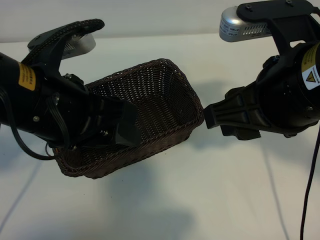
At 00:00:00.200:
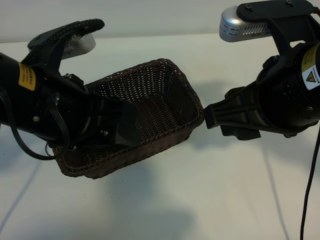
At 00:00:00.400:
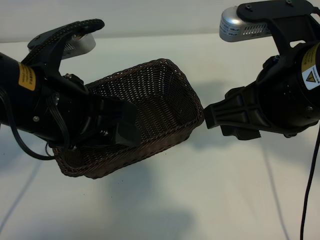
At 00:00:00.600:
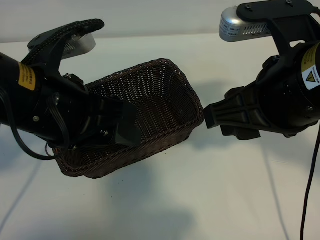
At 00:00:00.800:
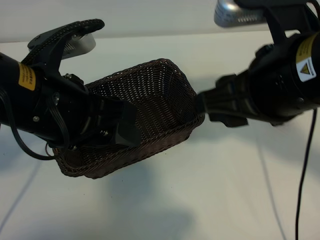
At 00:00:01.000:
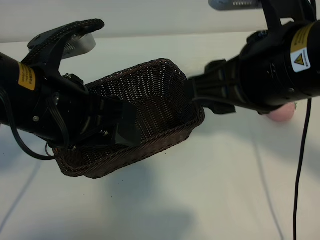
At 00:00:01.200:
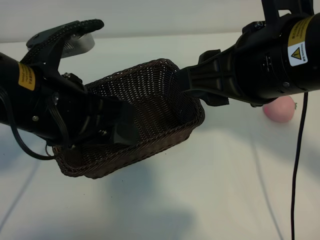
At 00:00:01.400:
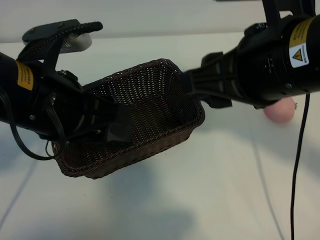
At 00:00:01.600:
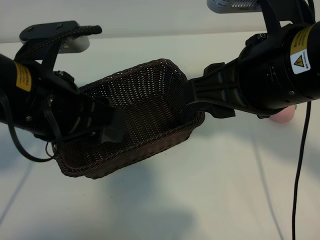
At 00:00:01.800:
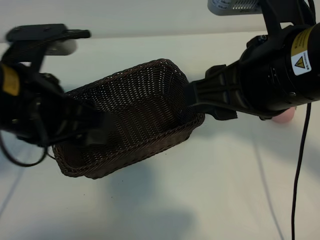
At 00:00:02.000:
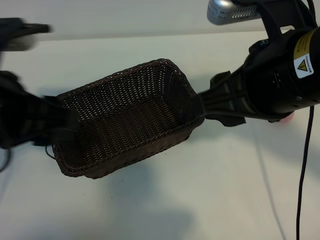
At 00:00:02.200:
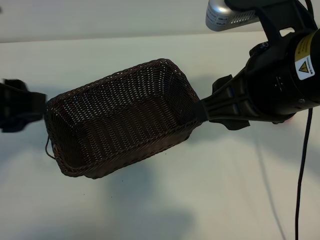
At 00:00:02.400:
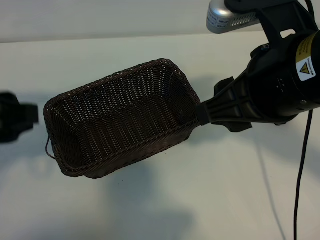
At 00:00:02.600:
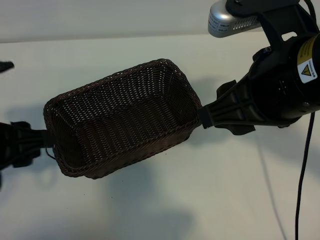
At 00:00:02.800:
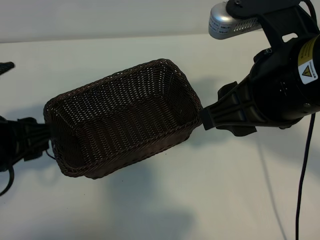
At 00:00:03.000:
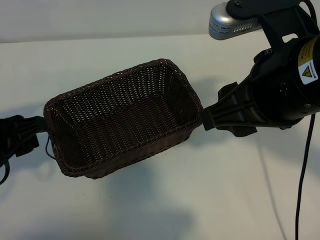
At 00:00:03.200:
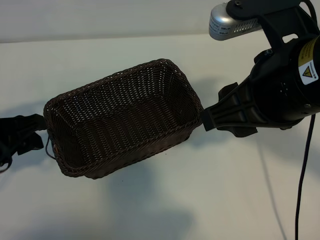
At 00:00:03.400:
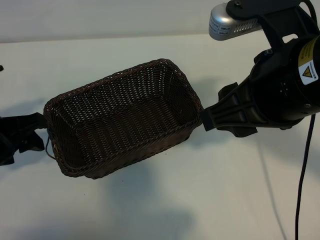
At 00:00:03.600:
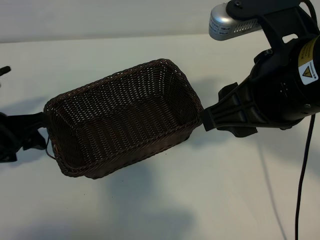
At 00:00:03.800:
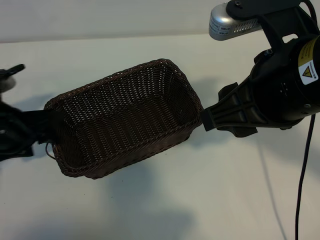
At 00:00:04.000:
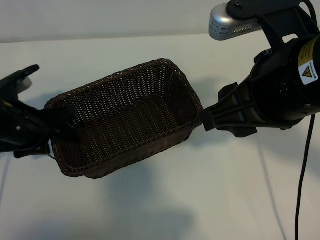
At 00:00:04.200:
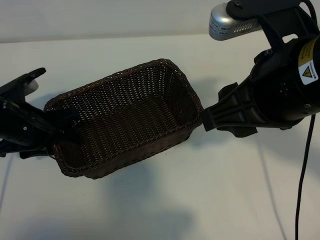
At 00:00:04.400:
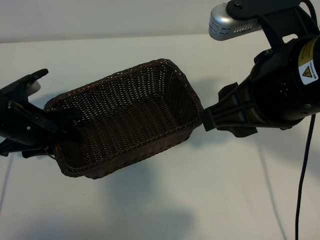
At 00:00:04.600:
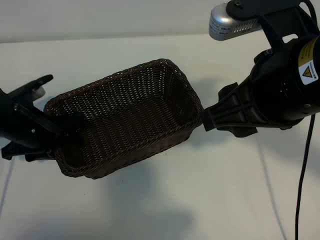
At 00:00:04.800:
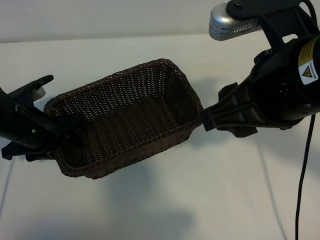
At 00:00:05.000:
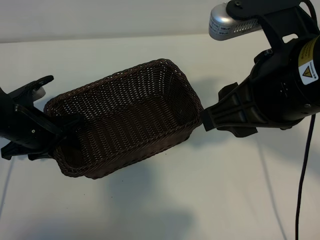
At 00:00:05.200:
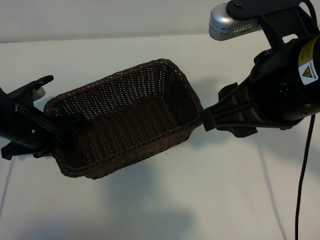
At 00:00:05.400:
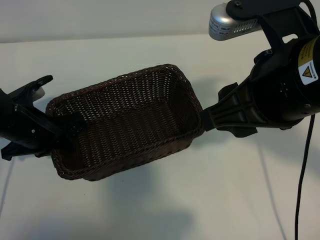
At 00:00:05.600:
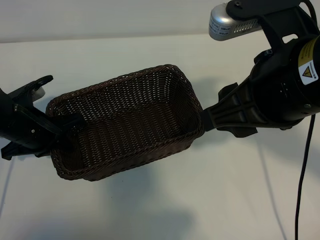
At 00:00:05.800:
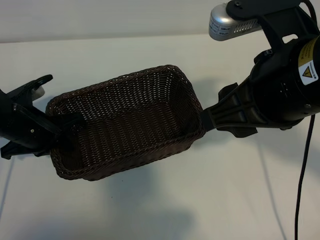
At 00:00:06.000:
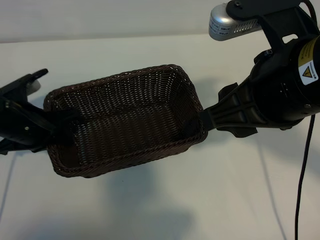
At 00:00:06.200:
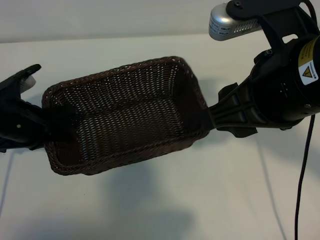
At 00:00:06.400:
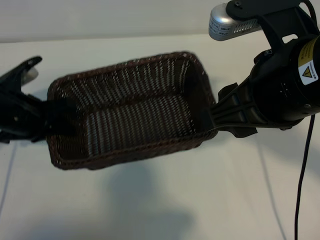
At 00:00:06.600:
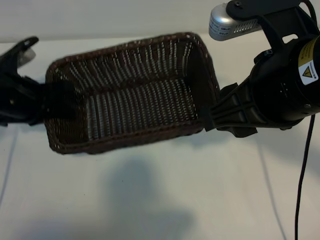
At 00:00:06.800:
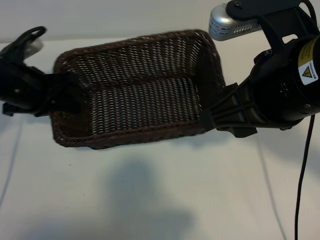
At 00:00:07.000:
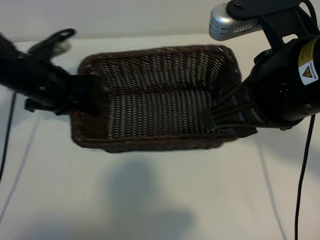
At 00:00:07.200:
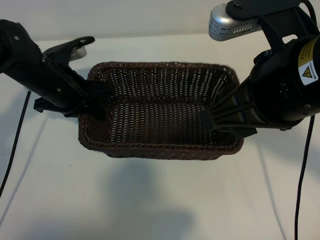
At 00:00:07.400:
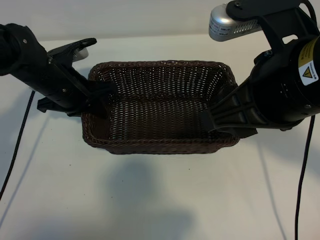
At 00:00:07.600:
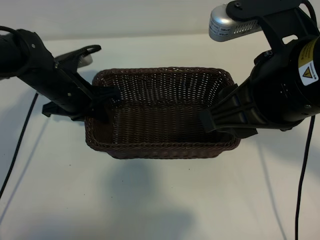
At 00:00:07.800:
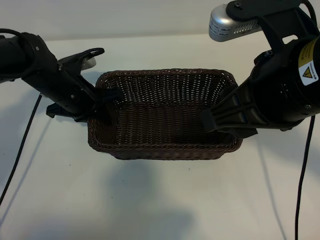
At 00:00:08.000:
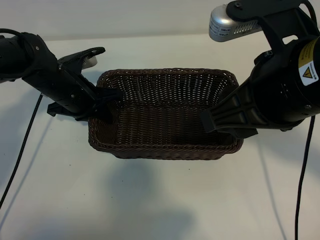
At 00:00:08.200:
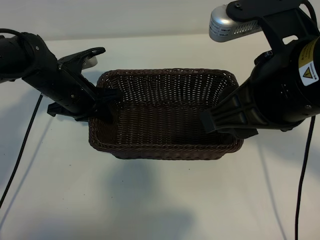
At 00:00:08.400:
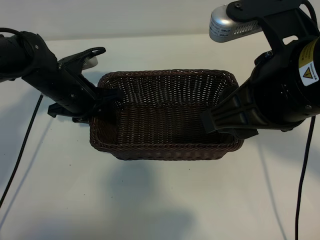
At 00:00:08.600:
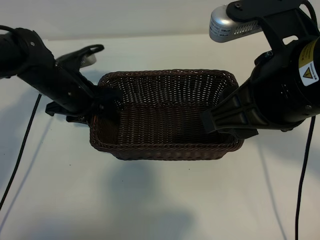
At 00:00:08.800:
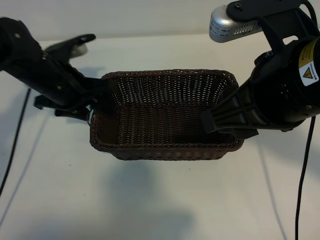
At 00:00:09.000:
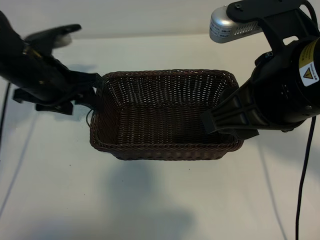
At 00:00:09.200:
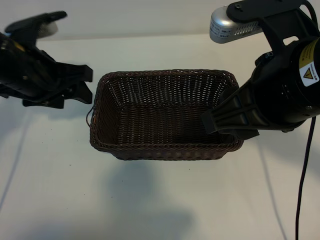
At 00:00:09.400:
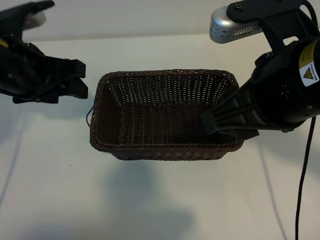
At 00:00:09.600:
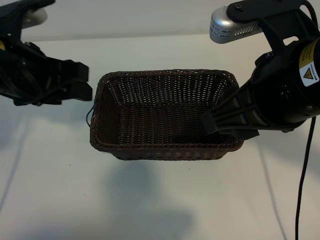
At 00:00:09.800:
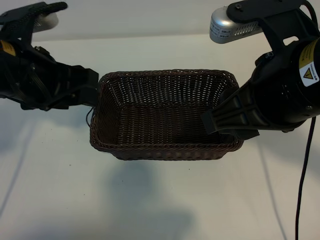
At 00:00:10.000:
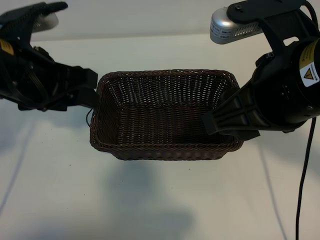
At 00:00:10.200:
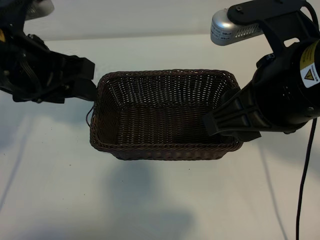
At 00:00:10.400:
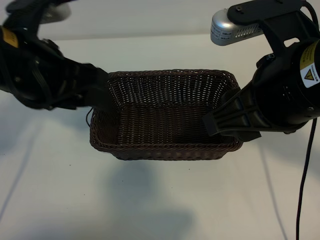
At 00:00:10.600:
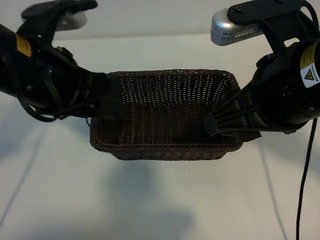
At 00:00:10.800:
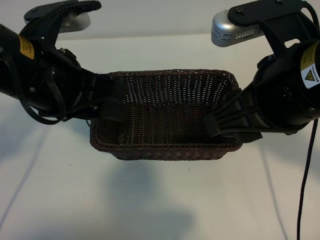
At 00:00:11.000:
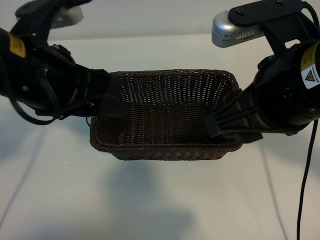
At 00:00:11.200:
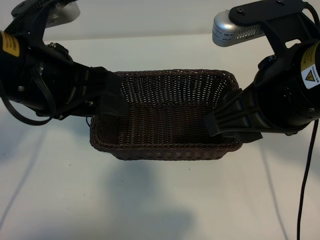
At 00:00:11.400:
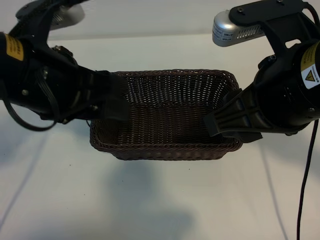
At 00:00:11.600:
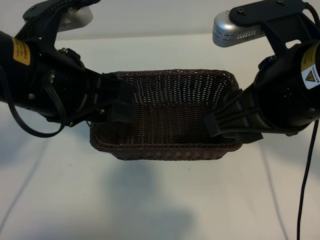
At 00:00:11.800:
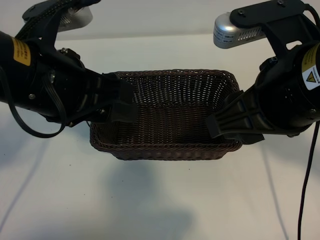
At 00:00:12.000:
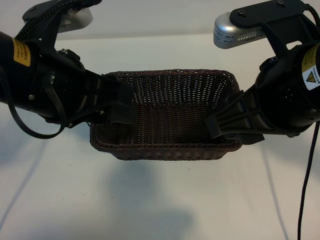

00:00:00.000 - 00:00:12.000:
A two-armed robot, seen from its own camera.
Task of the whole recording: pick up the peach and put it into the basket.
Step, 00:00:00.800 - 00:00:05.400: Grasp the basket with left gripper.
Step, 00:00:05.800 - 00:00:08.800: Place the basket in the center of view with left gripper.

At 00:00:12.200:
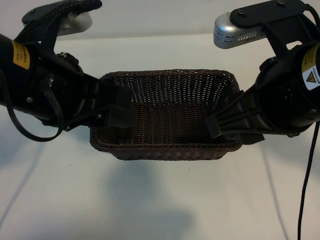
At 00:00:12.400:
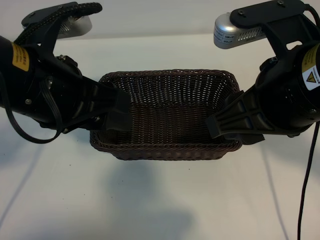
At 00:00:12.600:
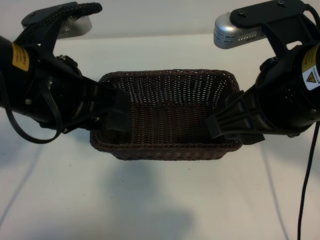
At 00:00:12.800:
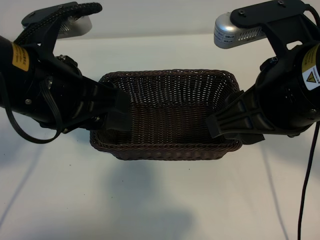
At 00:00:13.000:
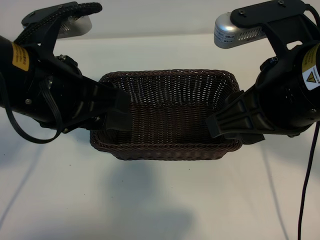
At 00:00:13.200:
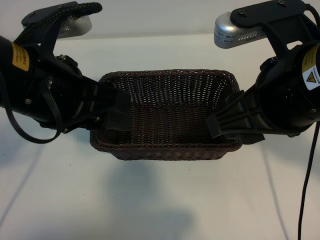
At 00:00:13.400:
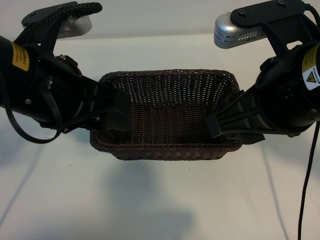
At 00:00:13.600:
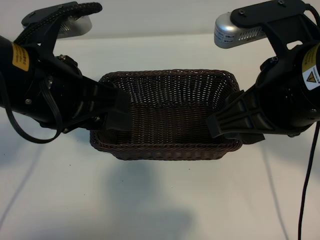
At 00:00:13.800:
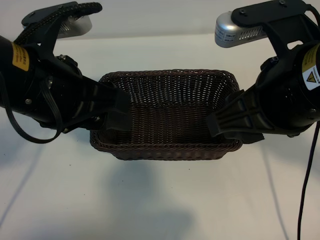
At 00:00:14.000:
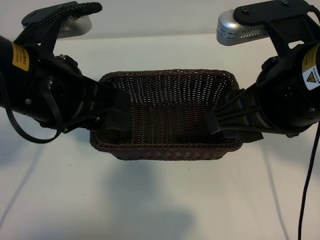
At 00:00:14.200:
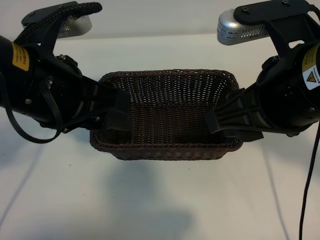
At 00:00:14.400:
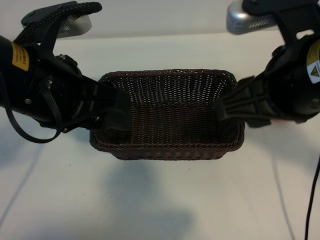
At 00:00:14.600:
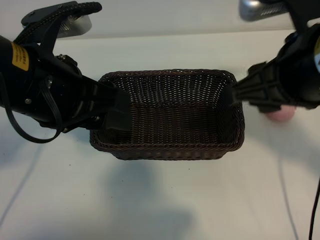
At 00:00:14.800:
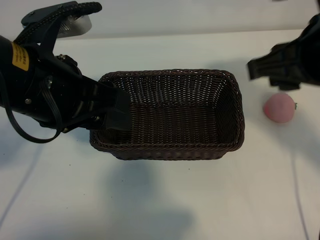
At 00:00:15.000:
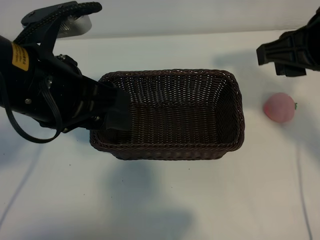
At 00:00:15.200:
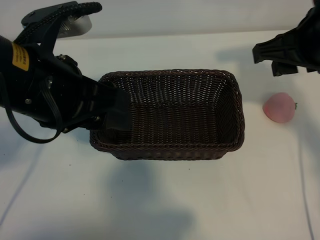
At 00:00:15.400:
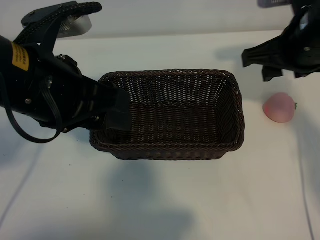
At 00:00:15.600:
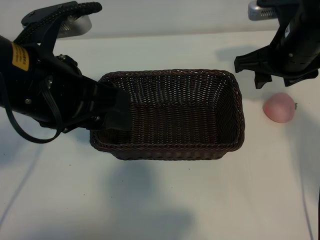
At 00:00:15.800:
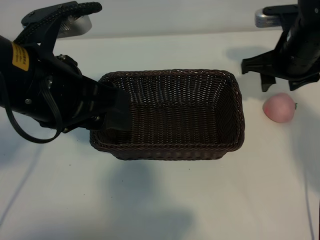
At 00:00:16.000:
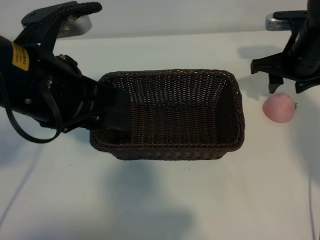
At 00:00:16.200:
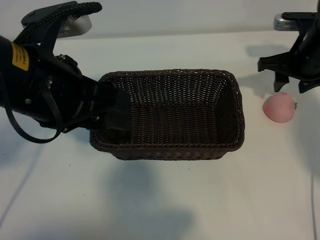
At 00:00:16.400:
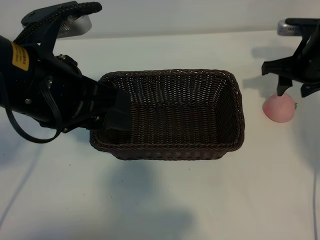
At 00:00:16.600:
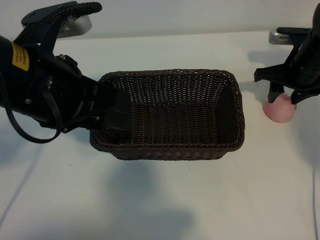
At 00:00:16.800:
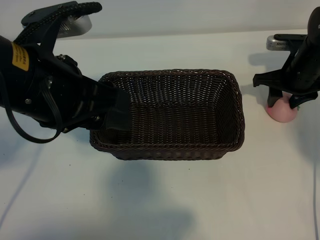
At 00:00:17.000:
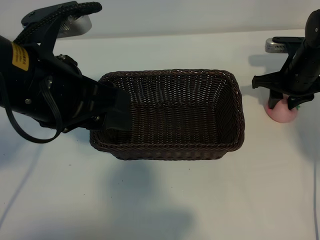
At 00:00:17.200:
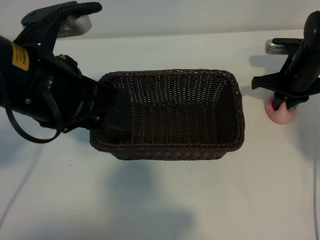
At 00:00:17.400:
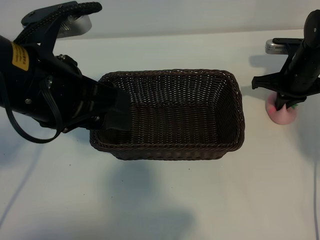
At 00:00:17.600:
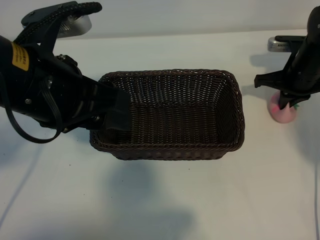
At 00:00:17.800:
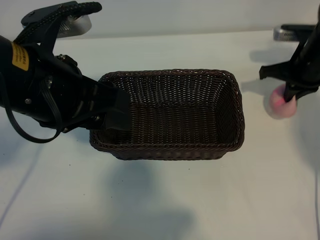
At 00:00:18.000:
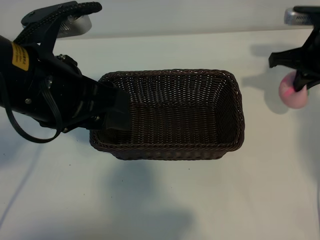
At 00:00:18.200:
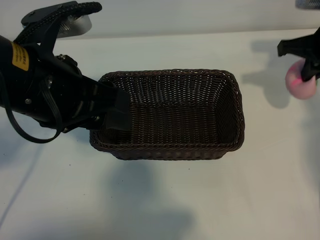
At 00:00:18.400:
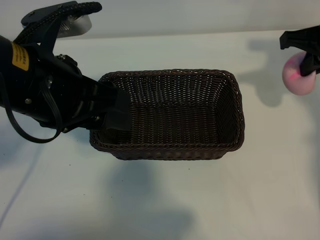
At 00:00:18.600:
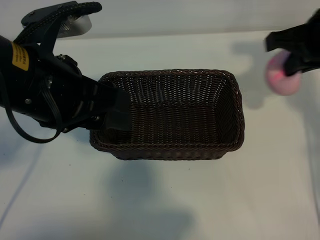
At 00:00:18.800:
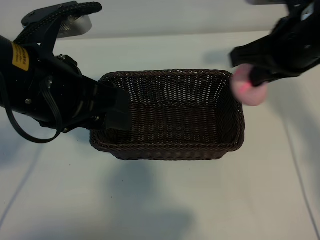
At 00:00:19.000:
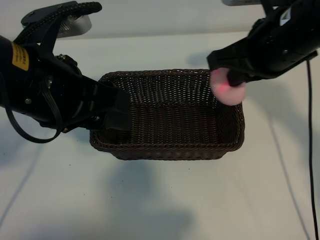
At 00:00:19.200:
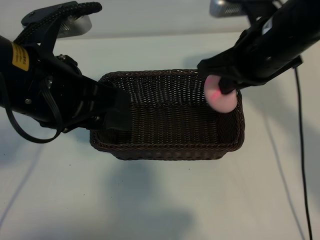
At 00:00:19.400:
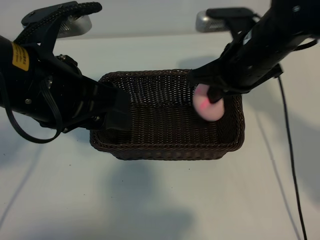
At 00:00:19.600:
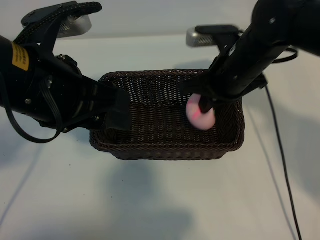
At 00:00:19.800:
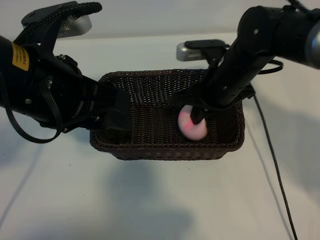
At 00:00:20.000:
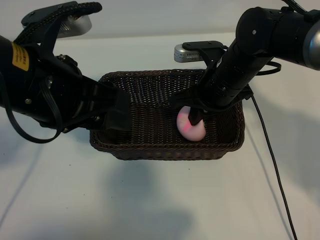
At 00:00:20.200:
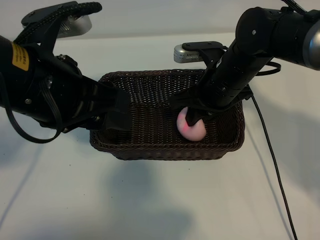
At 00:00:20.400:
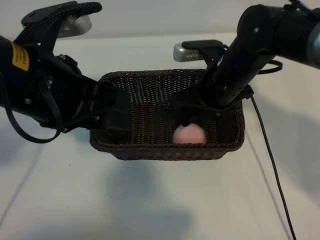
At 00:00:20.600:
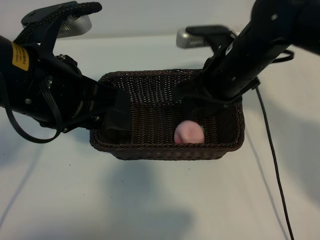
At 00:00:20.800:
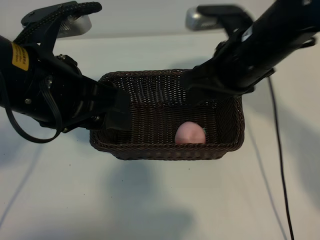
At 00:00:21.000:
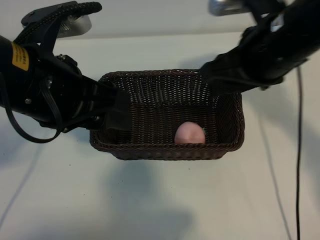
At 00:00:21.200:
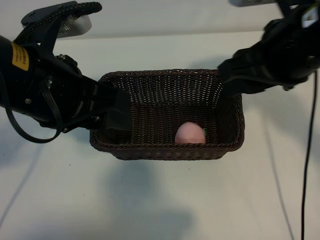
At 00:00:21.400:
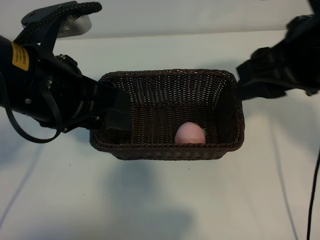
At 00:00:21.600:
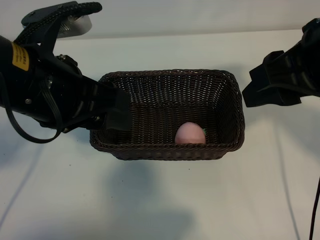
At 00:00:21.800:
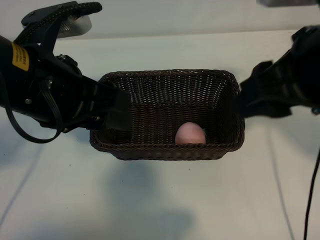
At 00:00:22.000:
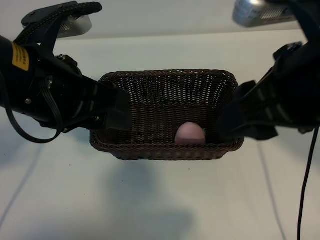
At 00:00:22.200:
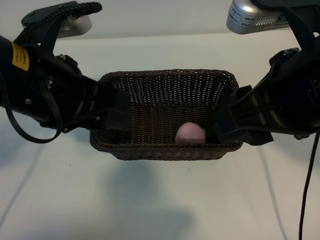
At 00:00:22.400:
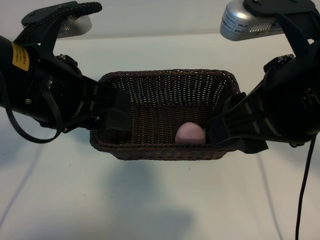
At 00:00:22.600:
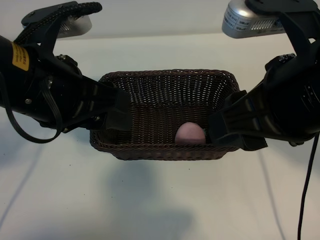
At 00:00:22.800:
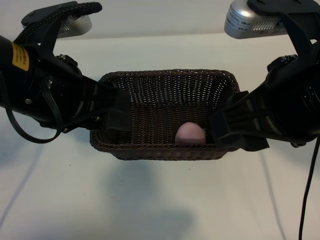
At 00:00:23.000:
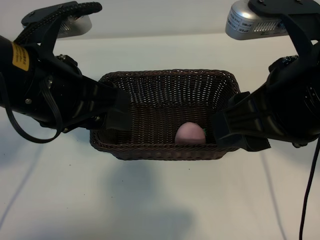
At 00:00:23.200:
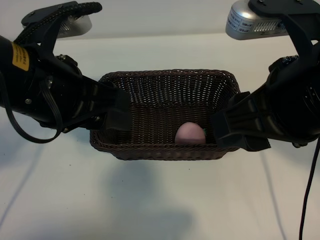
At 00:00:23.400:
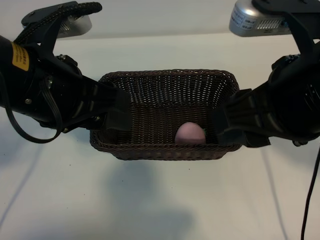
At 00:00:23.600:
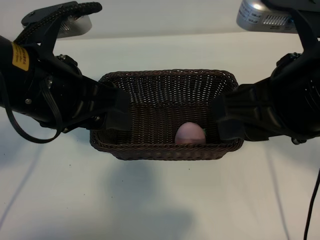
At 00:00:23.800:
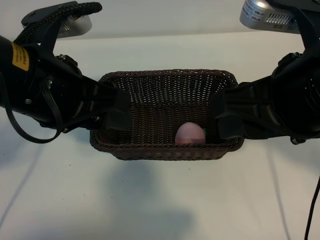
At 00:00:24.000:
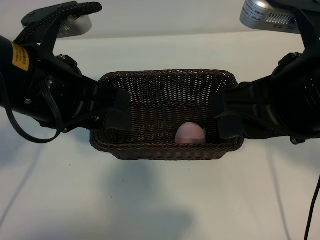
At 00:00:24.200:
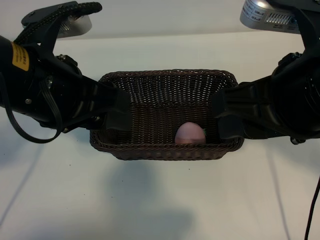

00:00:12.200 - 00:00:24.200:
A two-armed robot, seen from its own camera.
Task of the whole recording: pick up the peach and put it into the basket.
Step, 00:00:12.200 - 00:00:17.200: Grasp the peach with right gripper.
Step, 00:00:17.400 - 00:00:20.400: Place the peach in the basket with right gripper.
